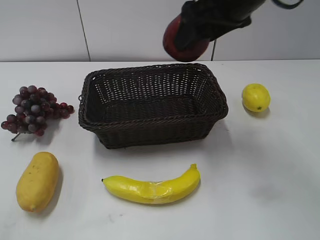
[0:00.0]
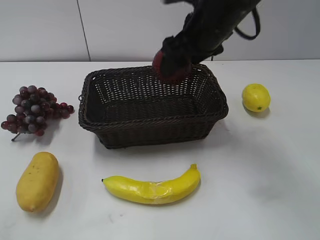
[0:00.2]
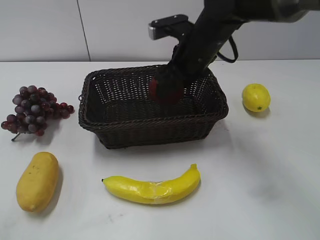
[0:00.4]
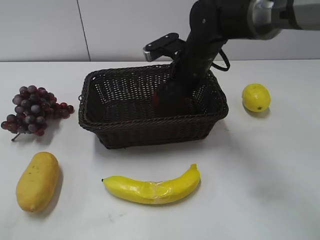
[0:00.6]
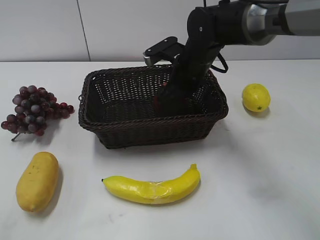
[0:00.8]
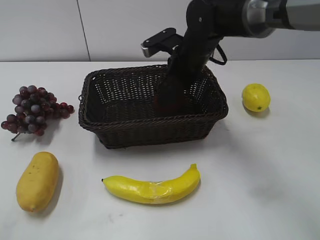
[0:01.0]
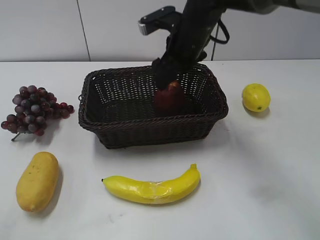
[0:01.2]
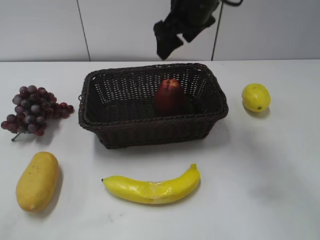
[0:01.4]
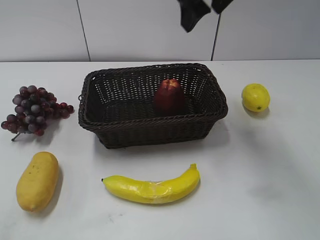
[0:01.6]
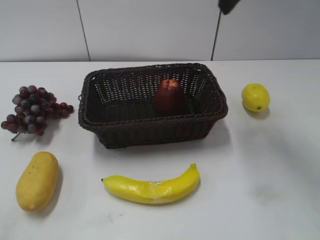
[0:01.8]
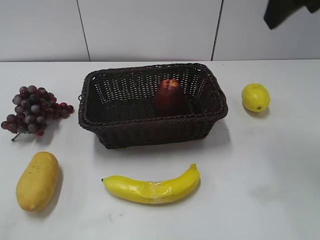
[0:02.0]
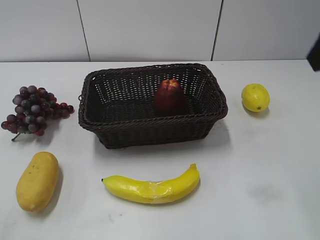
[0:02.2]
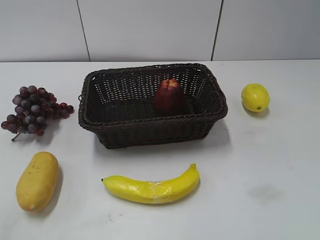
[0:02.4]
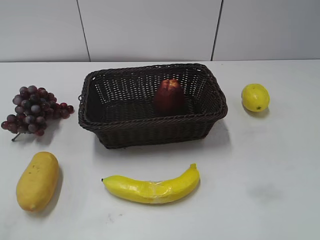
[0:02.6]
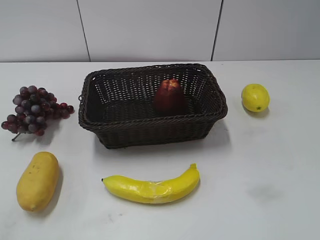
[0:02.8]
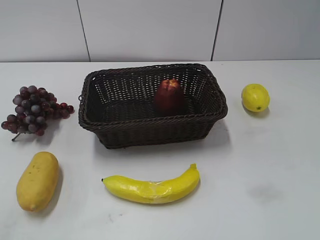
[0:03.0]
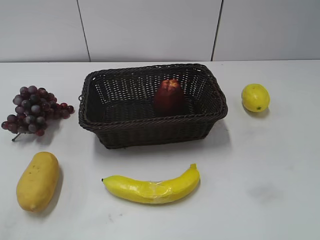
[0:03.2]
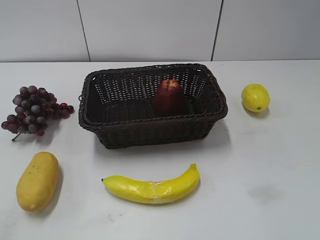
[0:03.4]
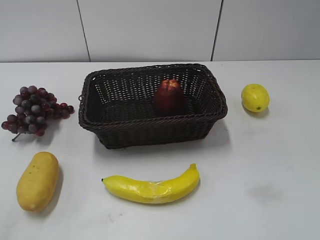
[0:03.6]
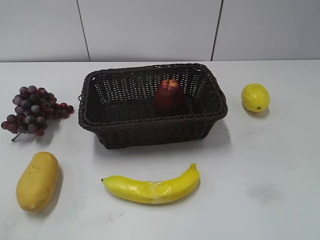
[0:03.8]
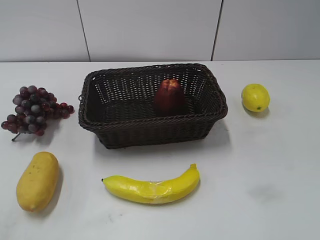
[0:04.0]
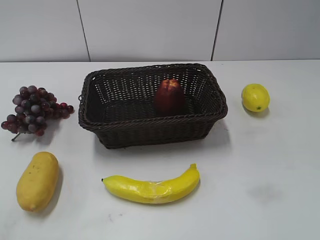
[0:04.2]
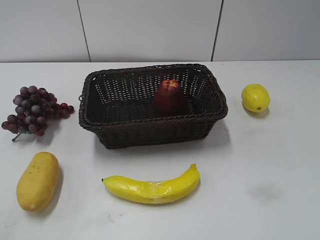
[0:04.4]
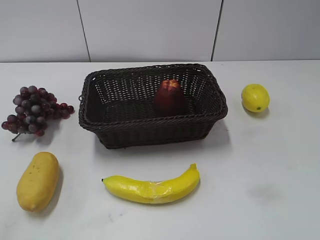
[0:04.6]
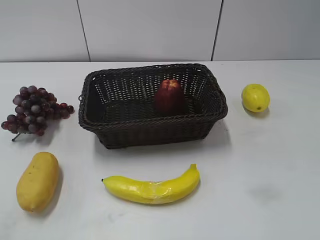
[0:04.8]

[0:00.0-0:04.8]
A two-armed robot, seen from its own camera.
0:00.0 to 0:01.6: The right gripper moves some 15 cm downward and comes back.
0:01.6 to 0:03.2: The right gripper shifts some 40 cm backward and to the right.

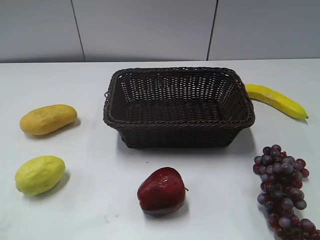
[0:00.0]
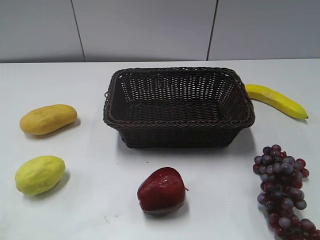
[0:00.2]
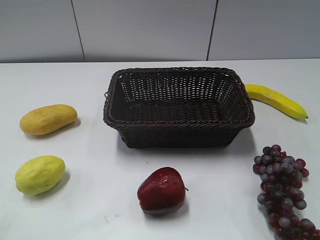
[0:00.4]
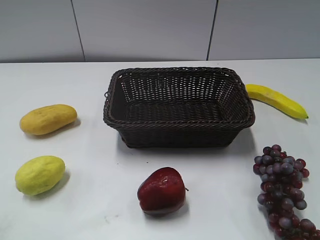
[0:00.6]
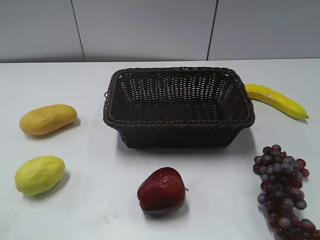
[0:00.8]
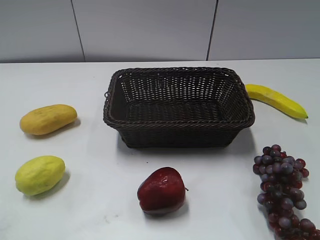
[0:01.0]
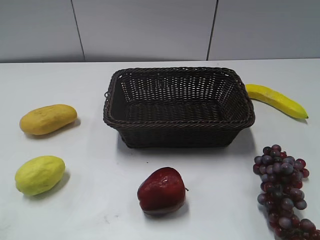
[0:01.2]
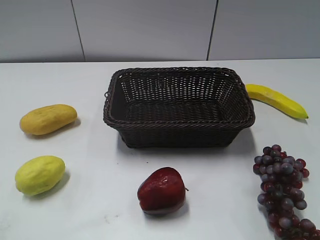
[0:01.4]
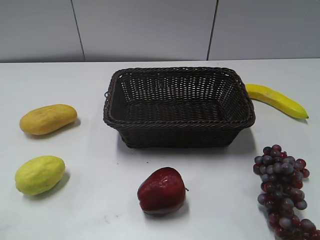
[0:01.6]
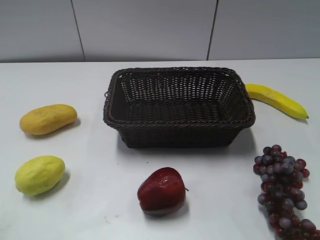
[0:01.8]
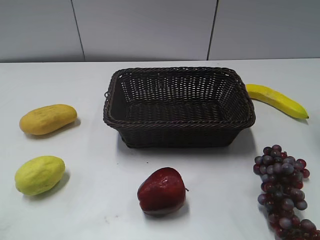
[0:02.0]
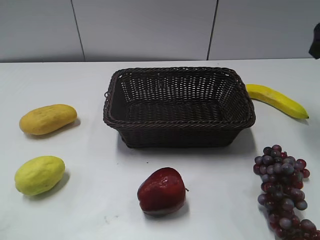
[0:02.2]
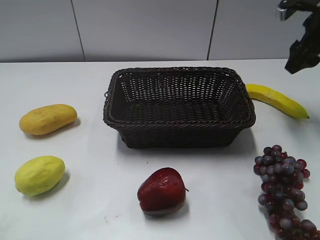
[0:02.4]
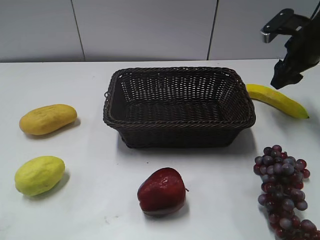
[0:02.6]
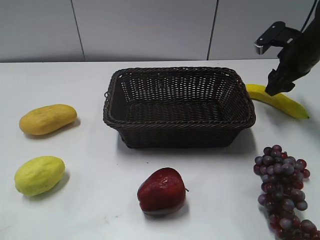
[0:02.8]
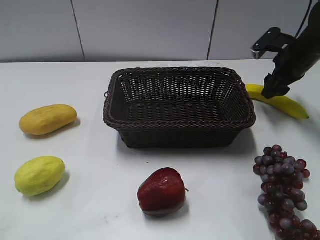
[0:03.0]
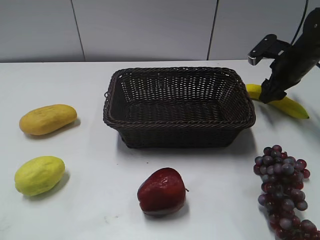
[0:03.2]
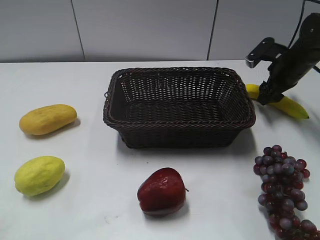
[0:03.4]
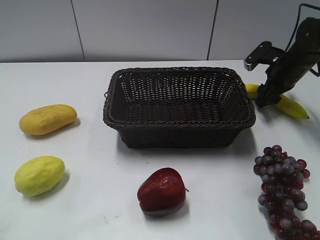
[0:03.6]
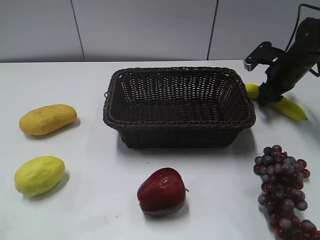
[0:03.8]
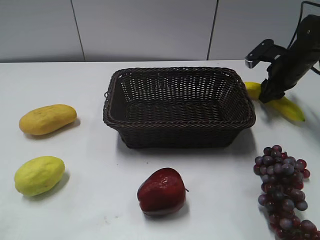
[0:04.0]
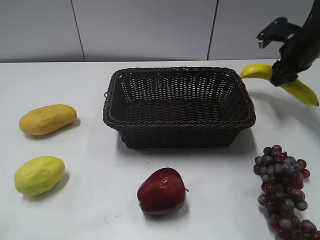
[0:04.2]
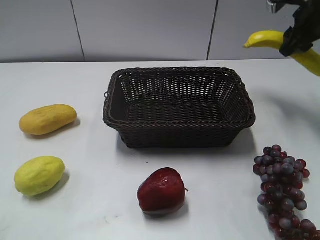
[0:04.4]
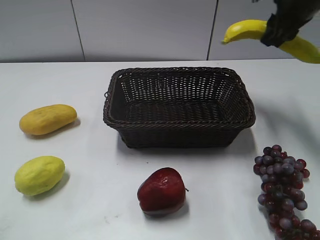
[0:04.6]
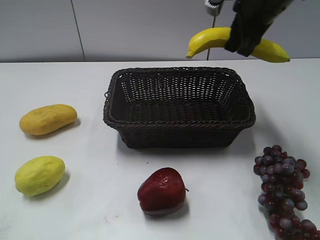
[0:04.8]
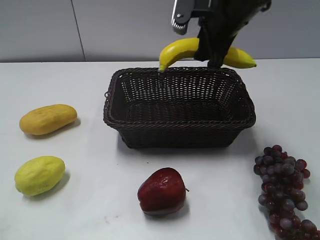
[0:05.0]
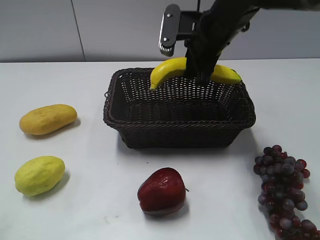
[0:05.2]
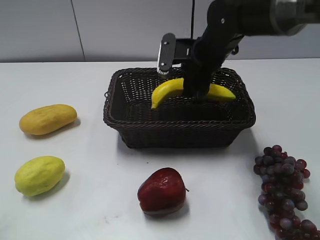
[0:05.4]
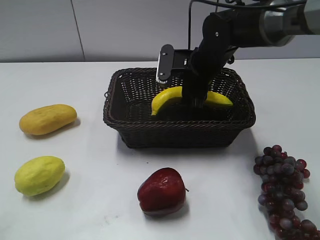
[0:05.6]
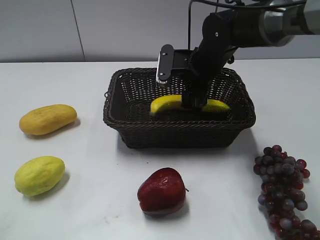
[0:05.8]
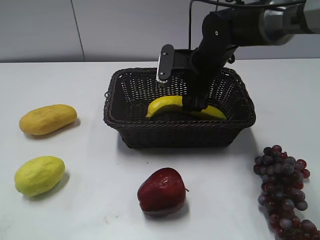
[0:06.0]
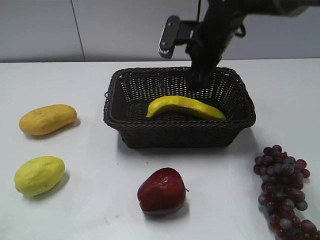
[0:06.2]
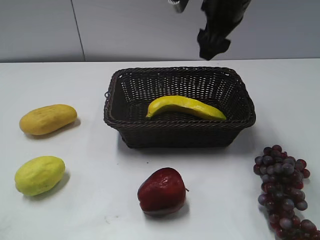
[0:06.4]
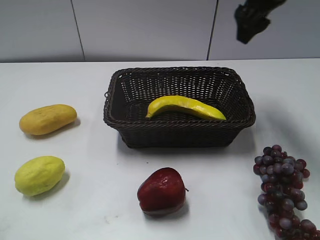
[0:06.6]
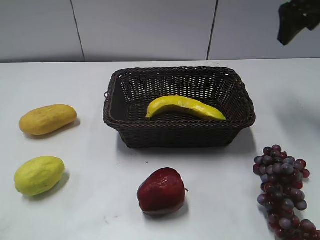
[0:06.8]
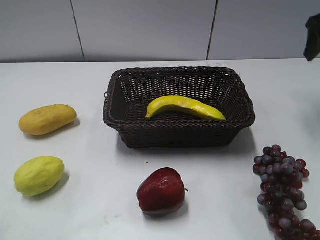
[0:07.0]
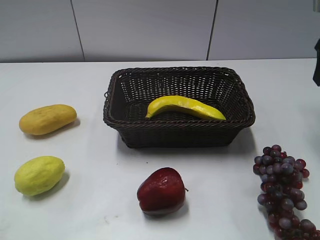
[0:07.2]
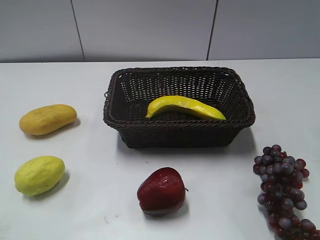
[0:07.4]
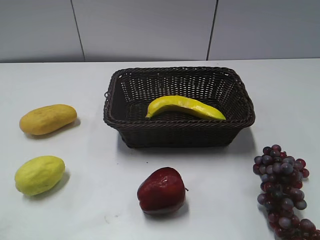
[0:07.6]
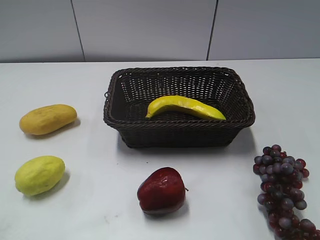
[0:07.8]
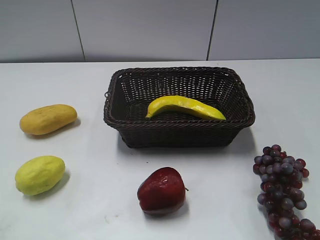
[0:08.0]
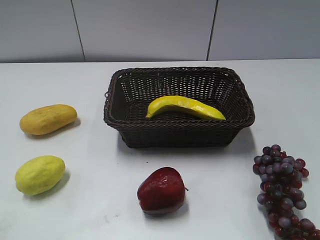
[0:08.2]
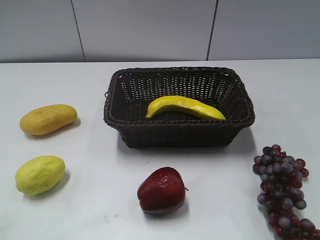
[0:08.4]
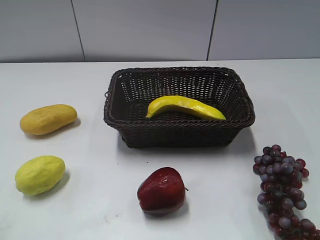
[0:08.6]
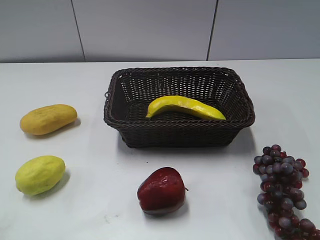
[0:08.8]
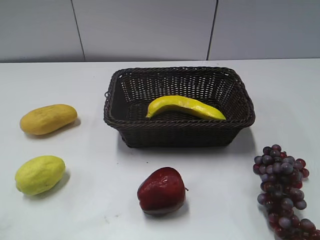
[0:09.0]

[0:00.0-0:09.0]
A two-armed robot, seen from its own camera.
Step, 0:02.2 to 0:04.0: Grasp the banana with right gripper.
Step, 0:04.2 to 0:06.2: Place the banana in the basket with right gripper.
0:01.6 to 0:03.0: The right gripper shifts some 30 cm downward and forward.
0:03.0 to 0:04.4: The right gripper travels upward by some 10 cm, and closes.
0:04.4 to 0:06.0: The right gripper is displaced to the left and downward by approximately 20 cm, and opens its fingers.
0:06.0 to 0:07.6: The right gripper shifts about 30 cm to the right, backward and upward.

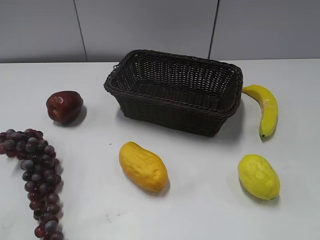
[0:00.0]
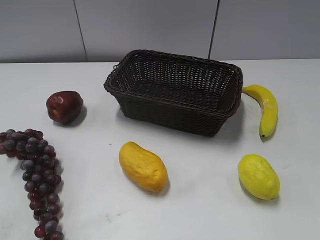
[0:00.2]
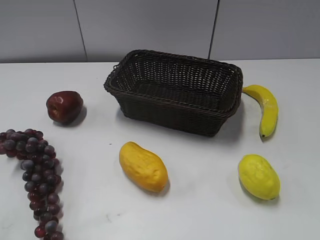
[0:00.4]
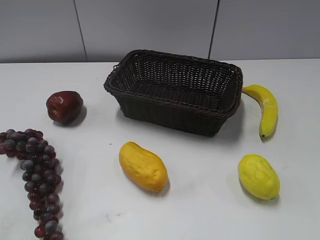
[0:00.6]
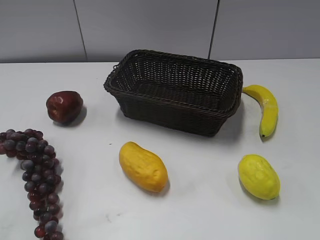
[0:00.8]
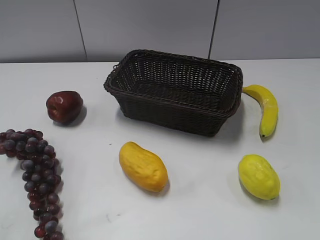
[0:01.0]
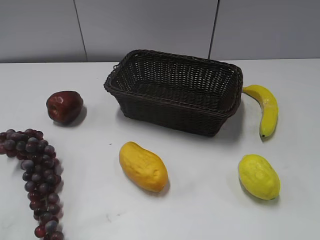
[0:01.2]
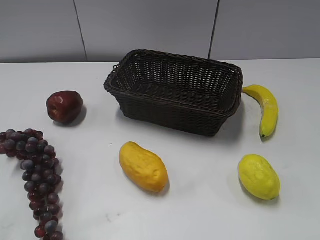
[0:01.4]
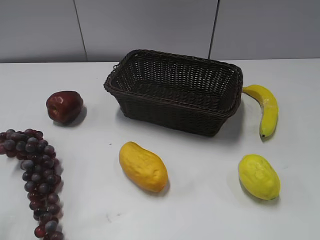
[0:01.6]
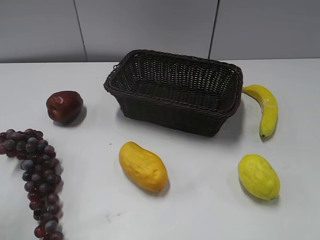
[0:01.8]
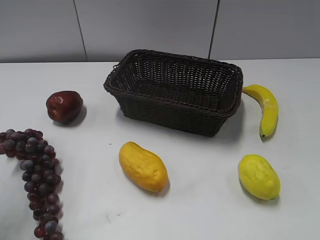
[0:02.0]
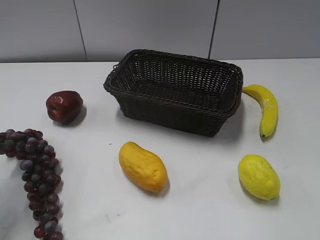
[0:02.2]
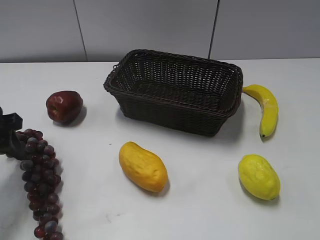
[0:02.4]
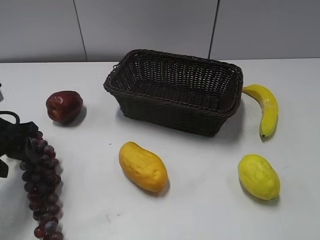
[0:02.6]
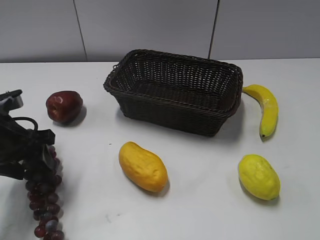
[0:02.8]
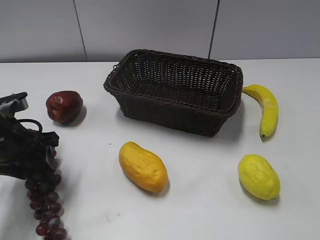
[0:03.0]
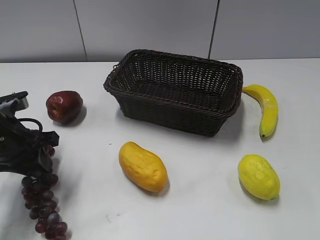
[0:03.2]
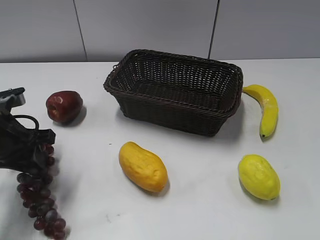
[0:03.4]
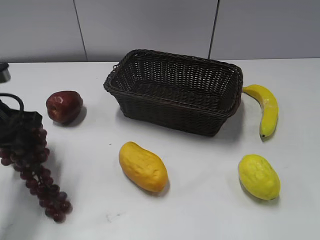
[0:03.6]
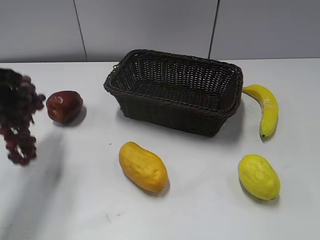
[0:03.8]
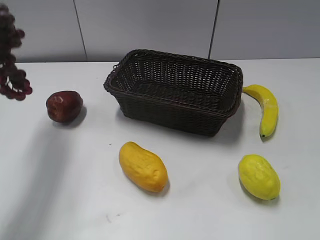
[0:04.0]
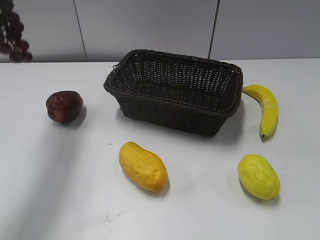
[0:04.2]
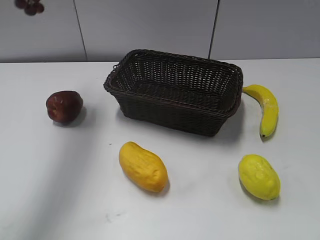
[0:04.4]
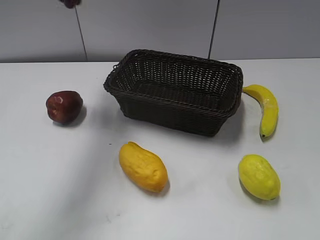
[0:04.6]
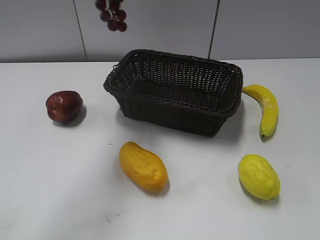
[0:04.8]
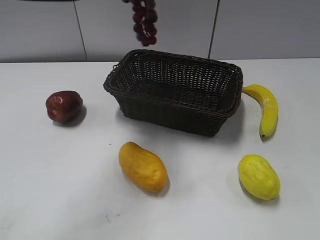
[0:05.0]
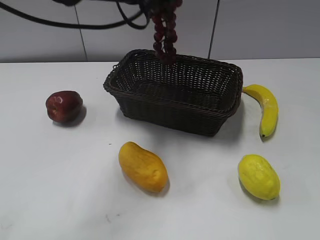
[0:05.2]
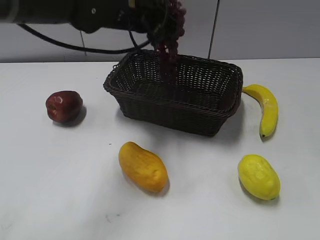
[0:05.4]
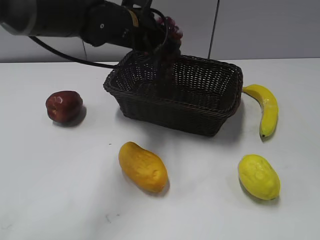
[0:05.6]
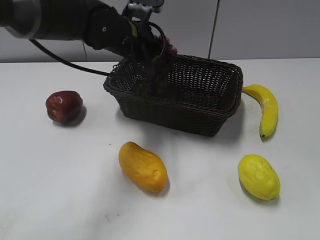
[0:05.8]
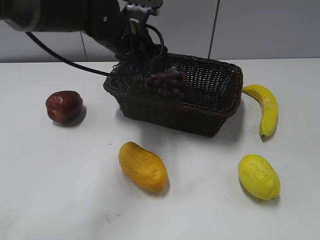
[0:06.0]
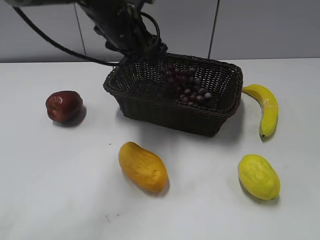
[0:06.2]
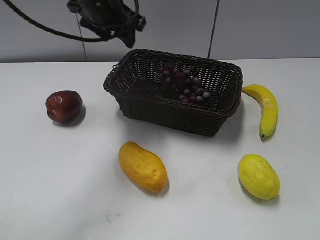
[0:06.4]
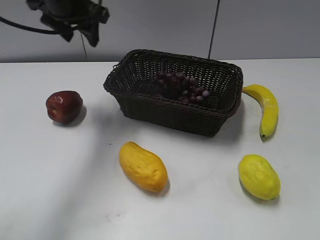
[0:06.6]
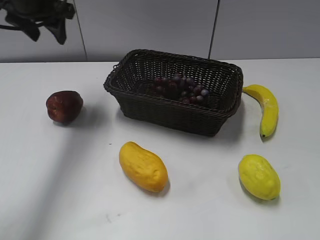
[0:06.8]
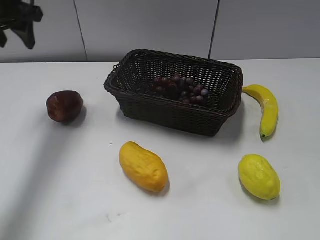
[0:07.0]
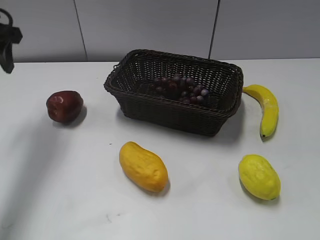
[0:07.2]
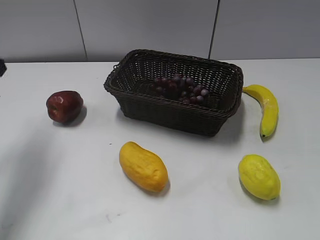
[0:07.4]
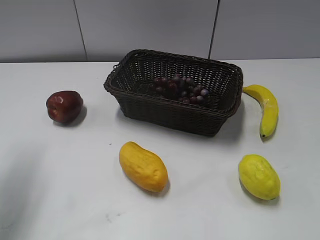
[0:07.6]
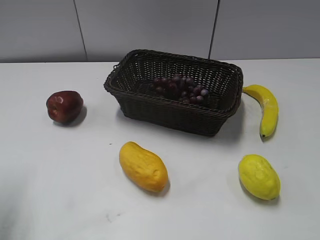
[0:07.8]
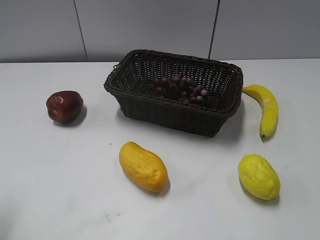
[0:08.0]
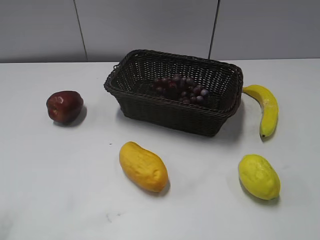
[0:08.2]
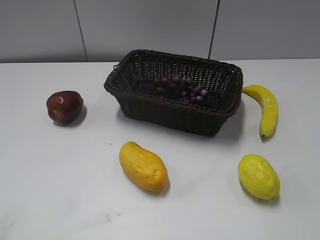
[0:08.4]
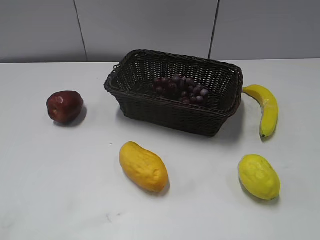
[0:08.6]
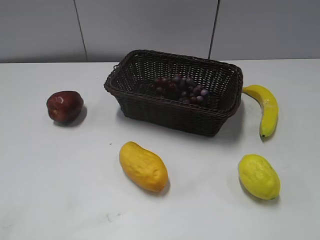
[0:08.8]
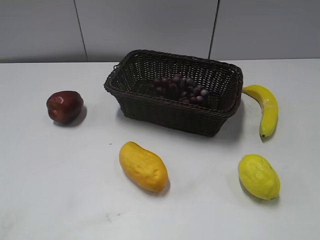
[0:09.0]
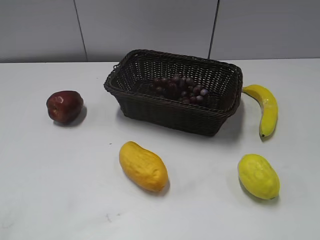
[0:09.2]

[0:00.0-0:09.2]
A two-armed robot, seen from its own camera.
Step, 0:02.0 to 0:03.4: Grasp the grape with left gripper.
Step, 0:03.6 to 0:06.0: Place the grape in the basket with left gripper.
0:01.6 to 0:03.0: The left gripper shifts some 25 cm forward and downward.
0:03.0 to 0:04.6: The left gripper heads upward, covering about 30 cm, and closes up.
0:04.6 to 0:06.2: The left gripper heads downward and to the right, covering roughly 20 cm, and opens its fingers.
0:06.2 to 0:07.6: The left gripper moves to the left and backward, approximately 25 cm.
0:07.6 to 0:09.2: The left gripper travels backward by approximately 25 cm.
